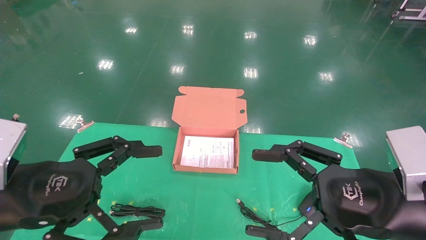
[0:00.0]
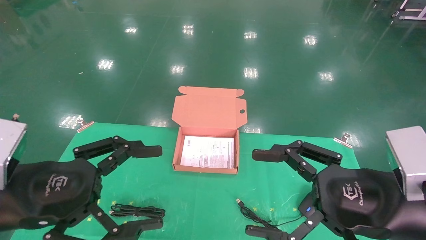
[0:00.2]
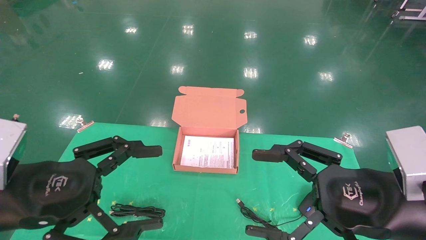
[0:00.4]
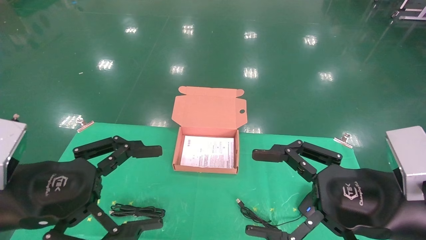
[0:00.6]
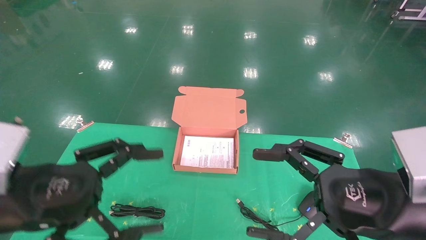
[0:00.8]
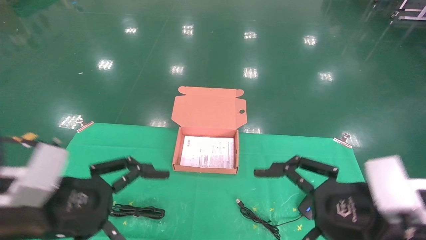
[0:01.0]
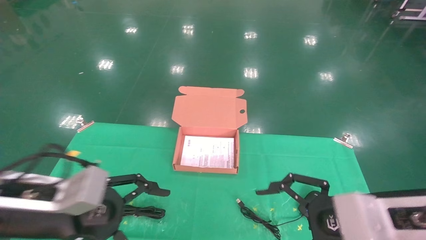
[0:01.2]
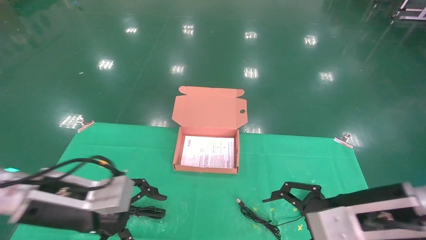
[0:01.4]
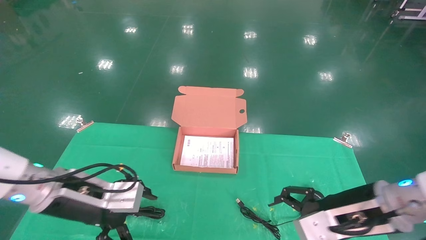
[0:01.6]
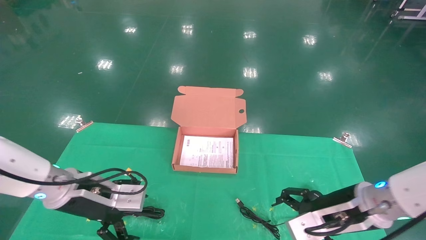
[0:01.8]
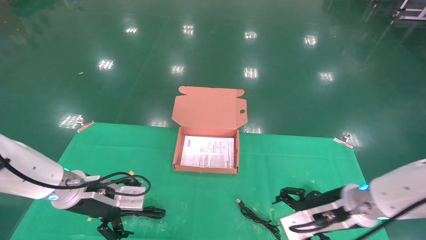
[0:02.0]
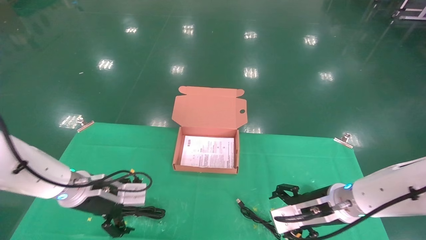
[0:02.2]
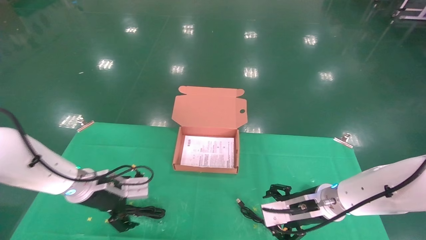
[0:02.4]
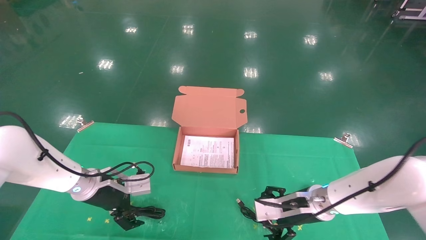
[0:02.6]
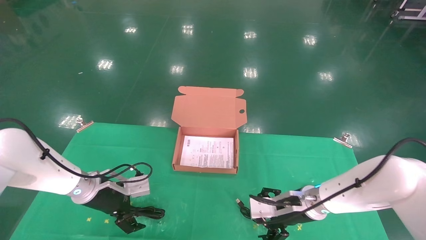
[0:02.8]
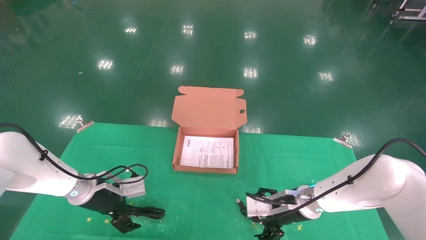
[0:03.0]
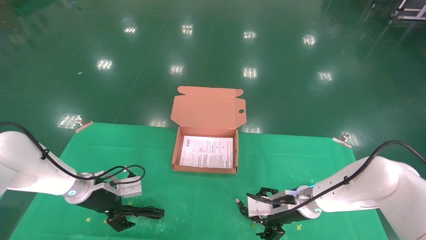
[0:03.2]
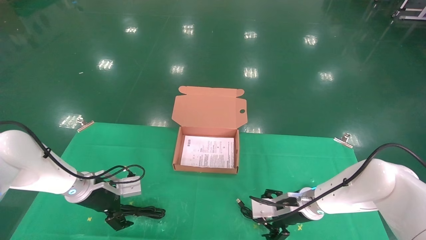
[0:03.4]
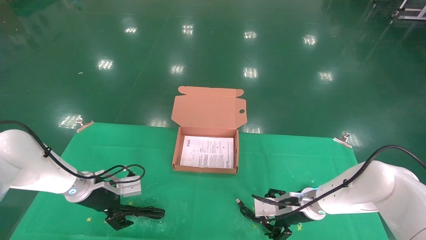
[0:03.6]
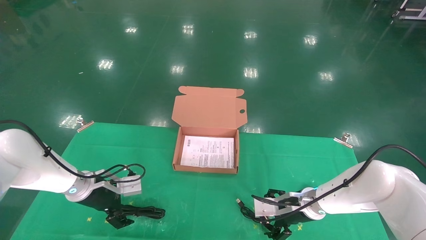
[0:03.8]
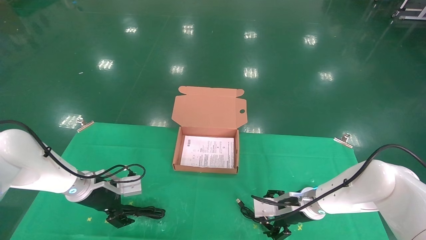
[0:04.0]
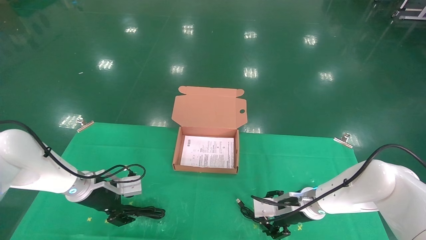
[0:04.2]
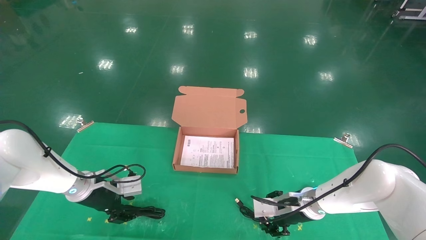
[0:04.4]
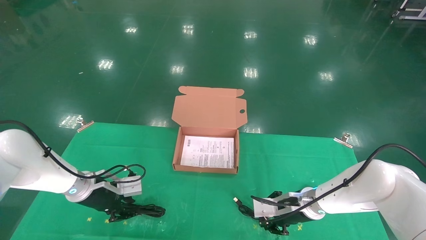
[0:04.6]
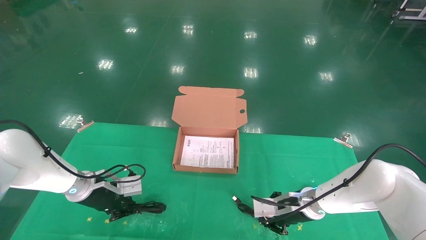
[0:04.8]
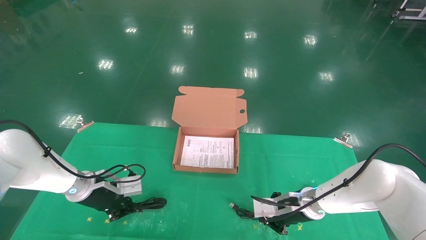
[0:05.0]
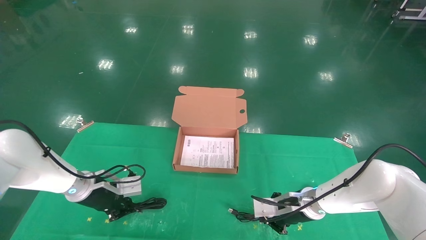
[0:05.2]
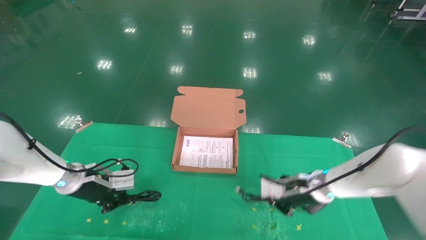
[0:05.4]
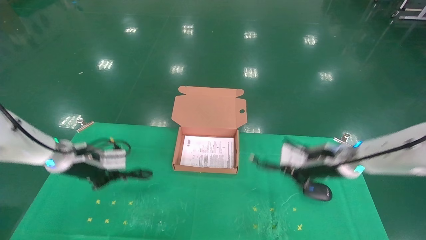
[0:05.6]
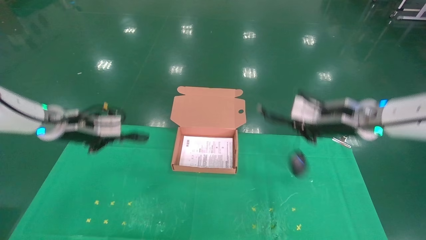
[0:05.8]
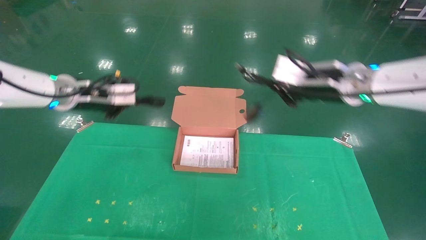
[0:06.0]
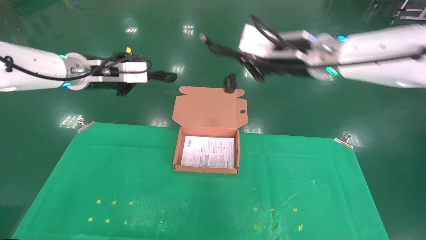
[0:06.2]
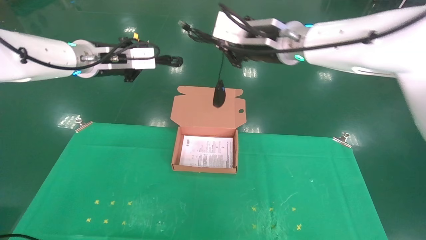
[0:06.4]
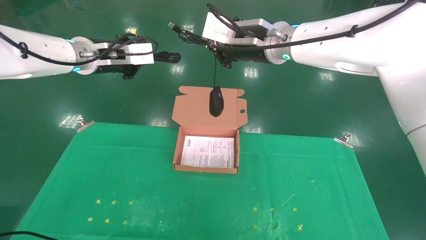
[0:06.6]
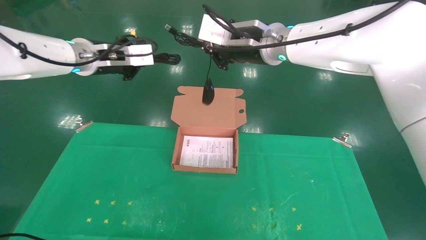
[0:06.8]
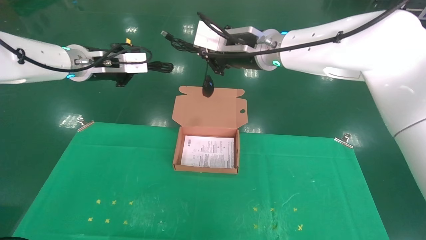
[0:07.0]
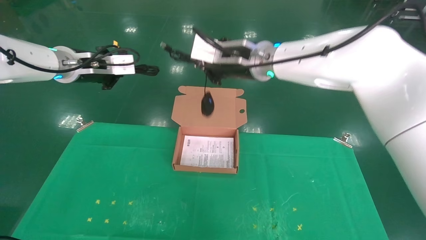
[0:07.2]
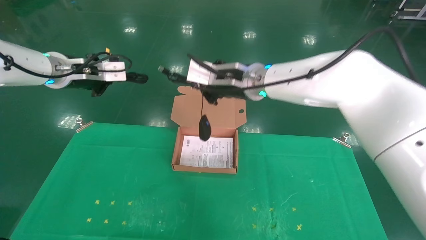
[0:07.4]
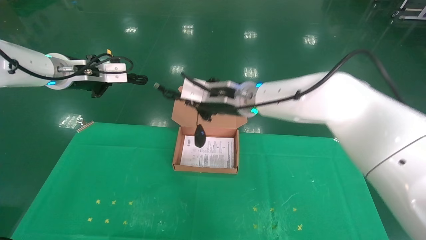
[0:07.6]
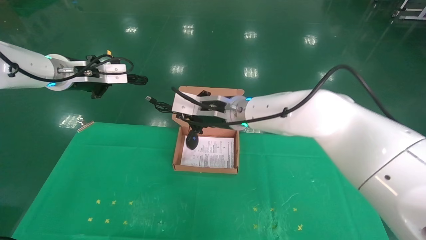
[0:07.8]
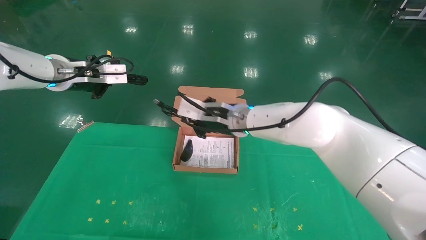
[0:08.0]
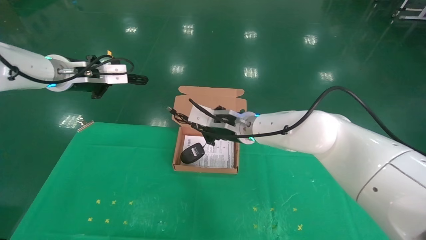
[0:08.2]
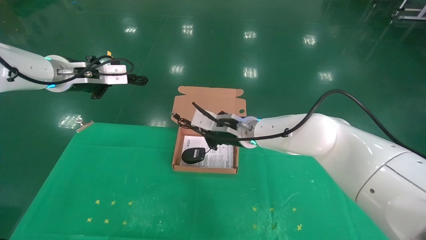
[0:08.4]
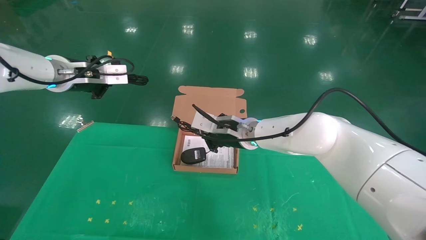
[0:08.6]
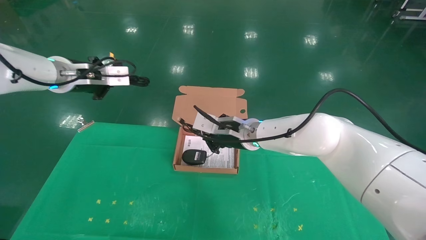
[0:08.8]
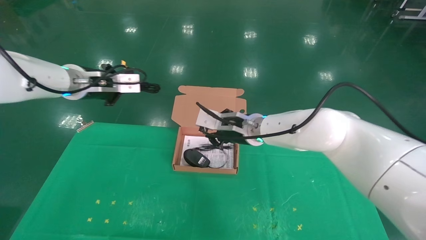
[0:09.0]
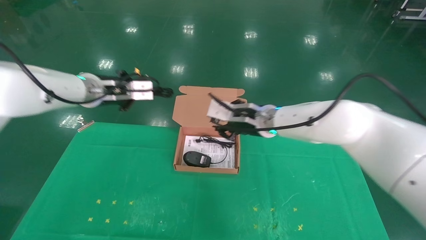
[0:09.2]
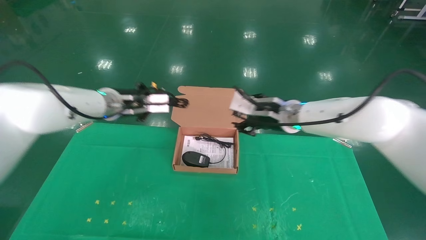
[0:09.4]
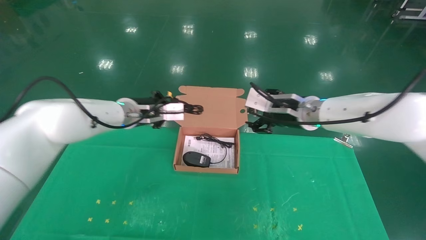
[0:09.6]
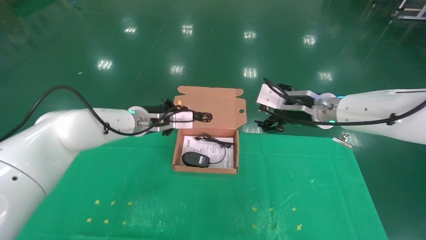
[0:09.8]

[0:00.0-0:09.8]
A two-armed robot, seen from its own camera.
Task of the whole recording: grasp data cable left put into box grasp mouse right put into box.
Step, 0:01.0 to 0:06.0: Grab and pick up both the mouse and power cord from the accessory packaging area at the same time.
0:00.0 to 0:01.4: Both grippers travel together forward, about 5 cm.
0:01.4 to 0:02.8: Both grippers travel together forward and downward, roughly 20 cm.
0:02.8 to 0:04.2: The grippers move only a little.
0:04.2 to 0:05.6: Both grippers move upward, approximately 10 cm. The left gripper closes its fingers; the right gripper closes up.
0:05.6 to 0:07.0: The left gripper is displaced upward by some 20 cm. The right gripper travels upward and to the left by approximately 25 cm.
0:07.0 to 0:08.4: The right gripper goes approximately 15 cm downward.
0:08.4 to 0:09.8: The left gripper shifts approximately 20 cm to the right and downward; the right gripper moves to the right and upward, approximately 15 cm, and opens its fingers.

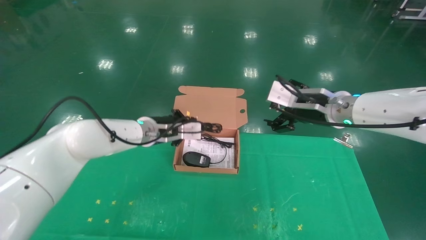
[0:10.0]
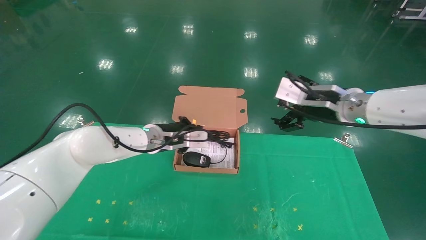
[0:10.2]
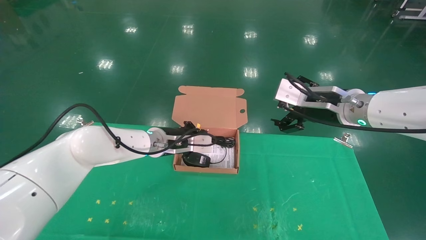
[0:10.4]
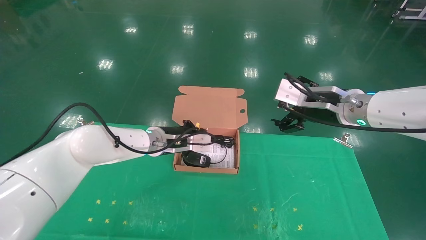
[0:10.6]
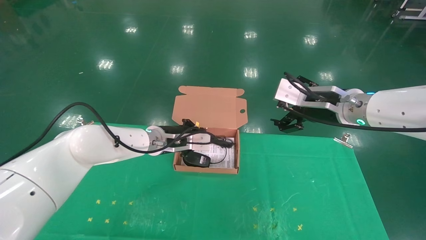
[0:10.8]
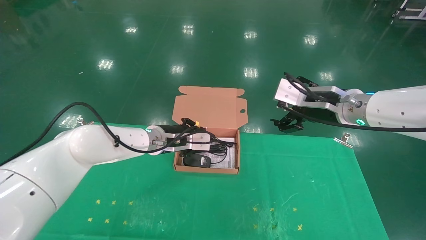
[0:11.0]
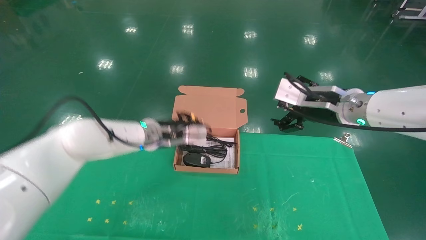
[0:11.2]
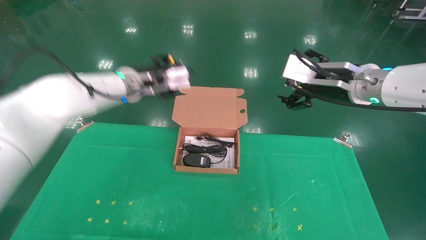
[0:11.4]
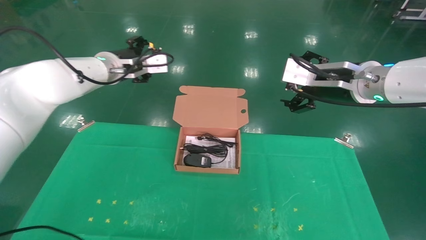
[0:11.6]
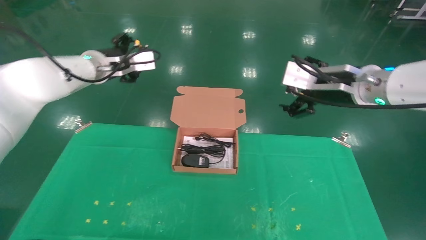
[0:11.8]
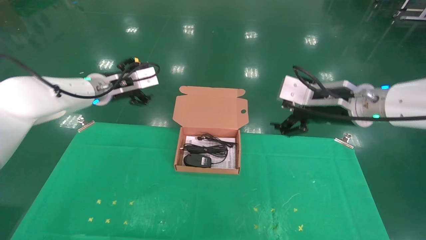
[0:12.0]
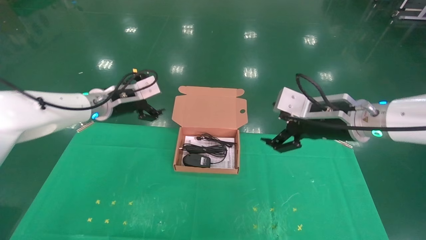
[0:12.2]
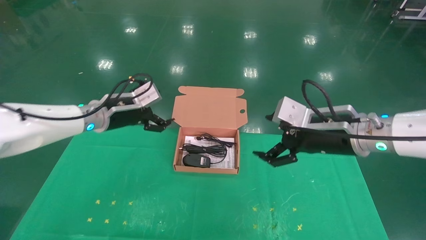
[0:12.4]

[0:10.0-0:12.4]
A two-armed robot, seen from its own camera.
Task of the whole recording: grasp data cable left put into box grasp mouse right put into box.
0:10.0 to 0:11.2: The grippers stay close to where they were, moving slightly.
0:11.2 to 0:12.4: The left gripper shifts approximately 10 cm to the left, goes upward and returns, roughly 10 cm each way, and opens. Meanwhile the right gripper shifts roughly 5 cm downward.

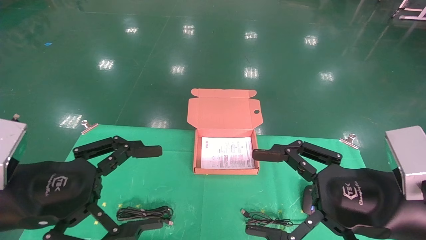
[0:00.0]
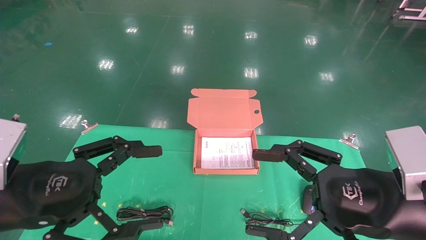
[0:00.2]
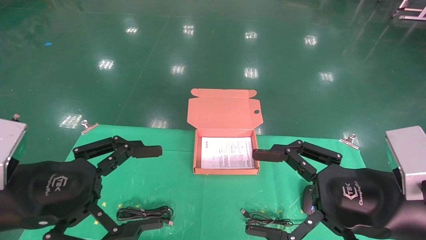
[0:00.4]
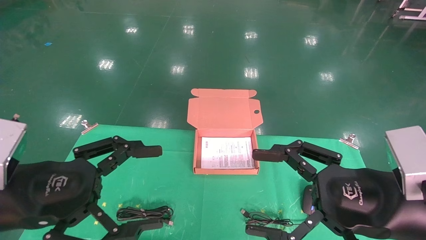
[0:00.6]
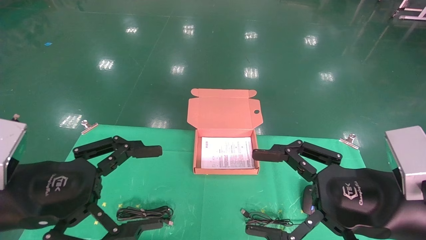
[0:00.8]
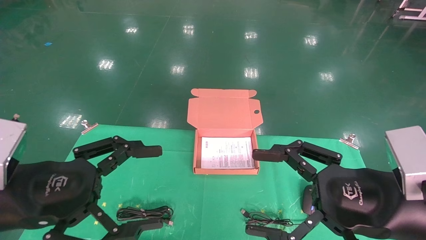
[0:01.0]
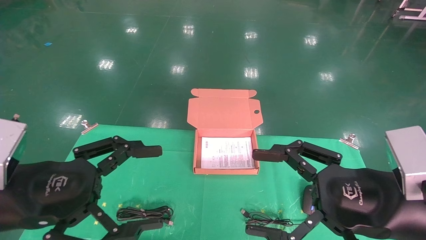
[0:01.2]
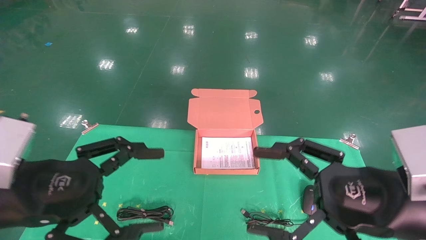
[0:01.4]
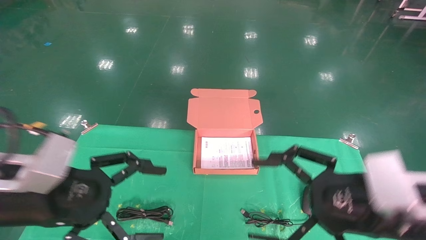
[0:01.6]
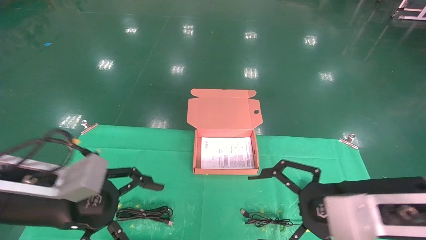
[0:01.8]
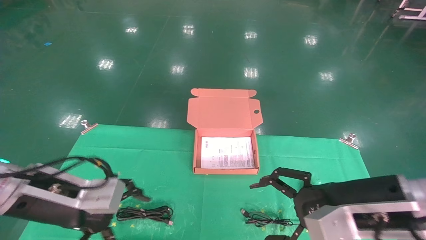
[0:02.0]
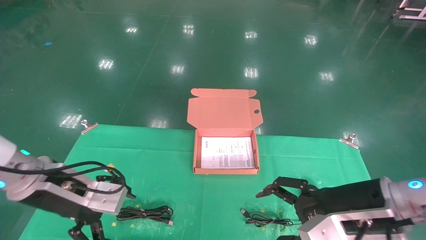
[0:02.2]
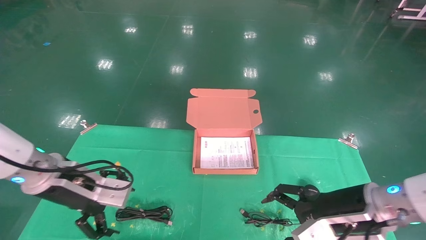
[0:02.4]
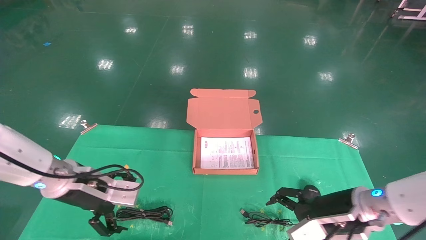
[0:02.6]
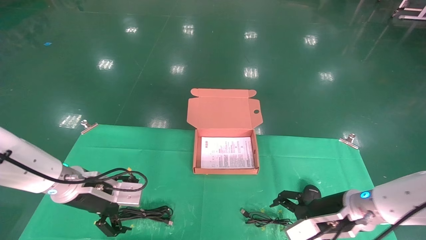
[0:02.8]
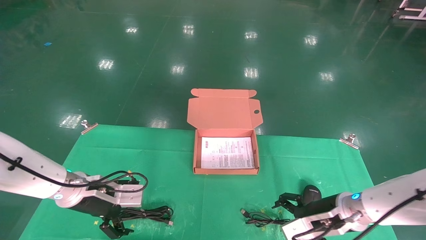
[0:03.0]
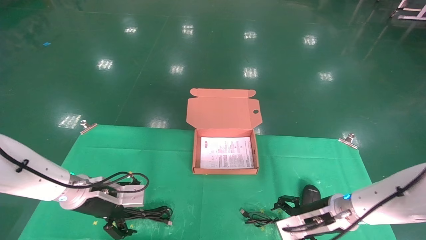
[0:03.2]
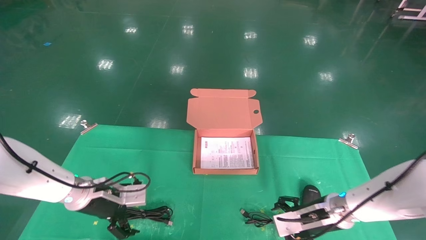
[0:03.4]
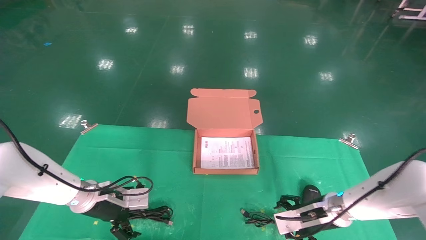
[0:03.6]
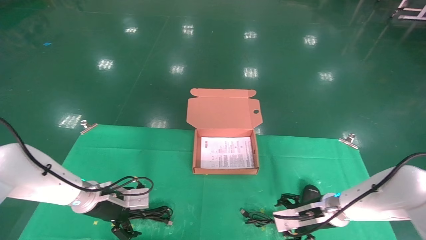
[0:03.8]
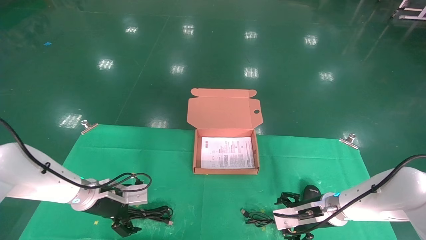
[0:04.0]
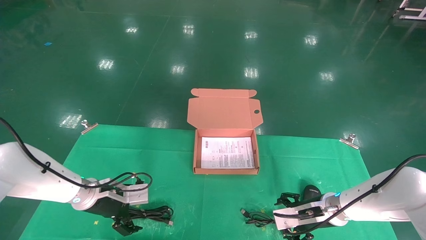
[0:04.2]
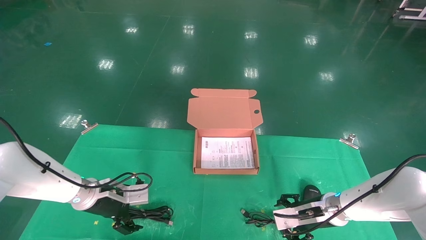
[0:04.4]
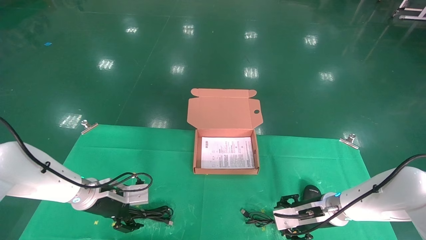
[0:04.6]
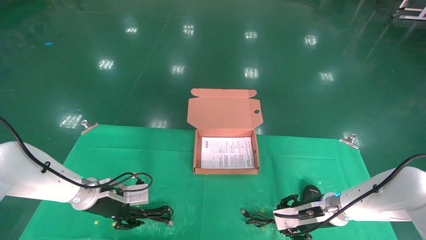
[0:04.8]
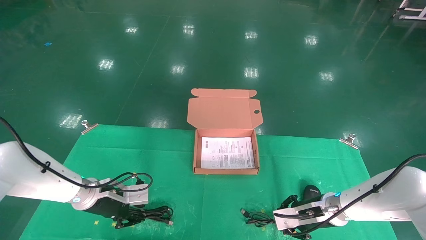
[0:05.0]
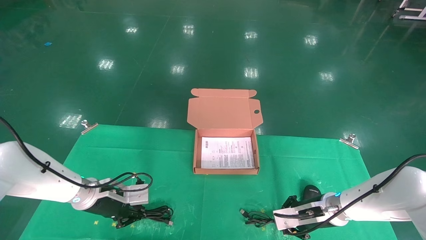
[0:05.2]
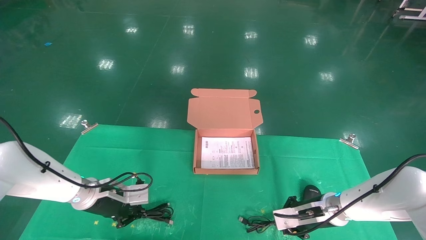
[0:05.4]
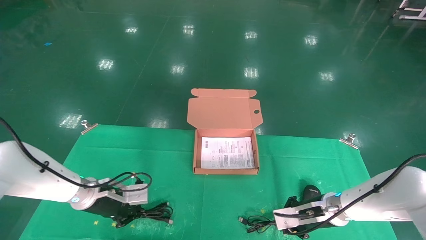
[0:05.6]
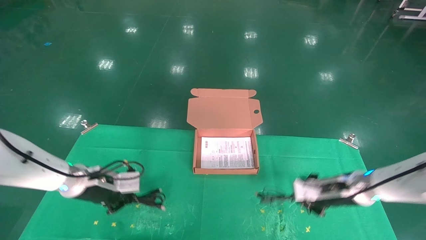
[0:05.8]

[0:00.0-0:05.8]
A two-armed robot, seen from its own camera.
Task of the whole recording: grasp data cable left put into box grasp mouse right put into box.
Step, 0:00.8 to 0:05.4: Grab and pick up both the mouse and power cord from the accessory packaging area at the same time.
0:00.0 to 0:01.4: The grippers stay close to where they were, moving slightly.
0:01.4 to 0:02.8: The grippers both shift forward and downward by some 20 cm.
0:02.8 to 0:04.4: The left gripper heads downward and forward, covering roughly 10 cm; the right gripper goes approximately 10 cm forward and downward.
0:04.4 to 0:05.8: The grippers both shift upward by some 5 cm. The left gripper closes its fingers, while the right gripper closes its fingers.
